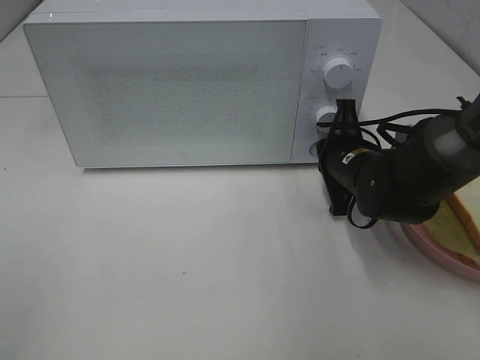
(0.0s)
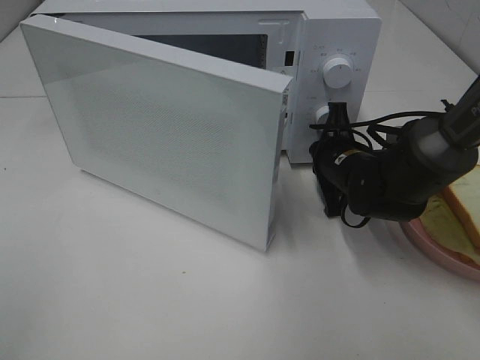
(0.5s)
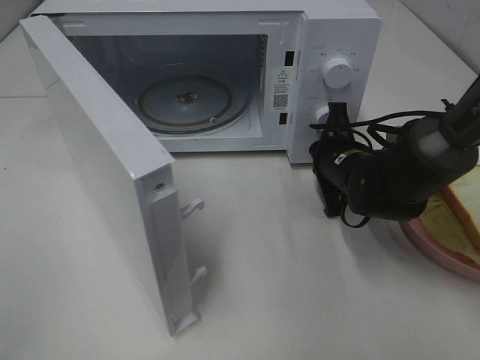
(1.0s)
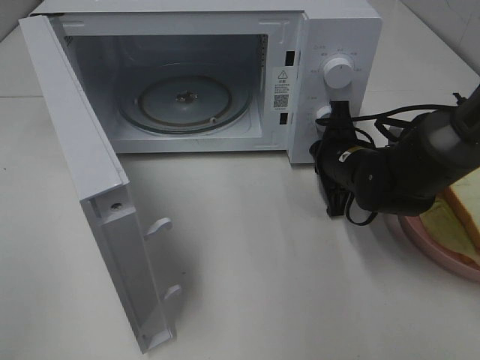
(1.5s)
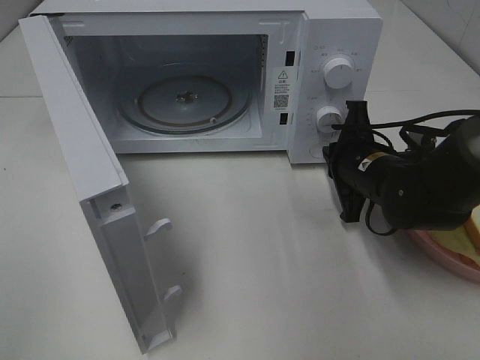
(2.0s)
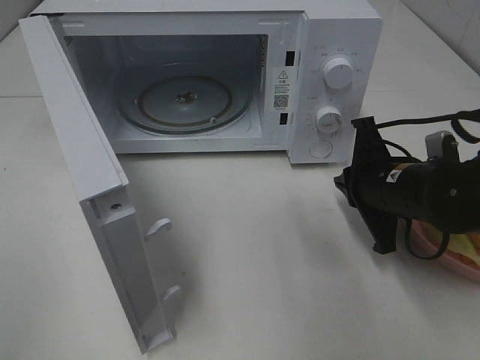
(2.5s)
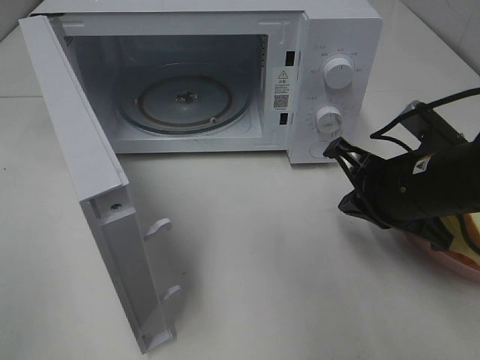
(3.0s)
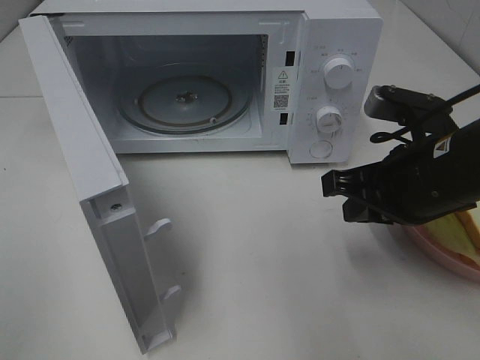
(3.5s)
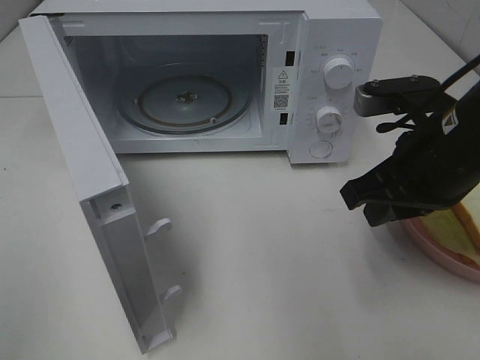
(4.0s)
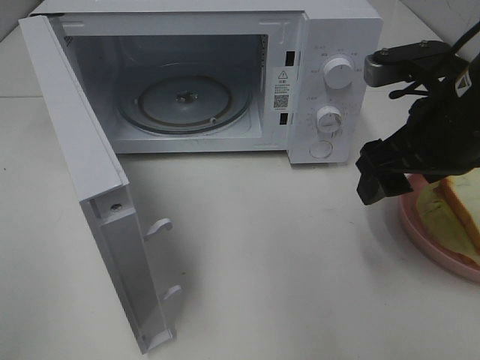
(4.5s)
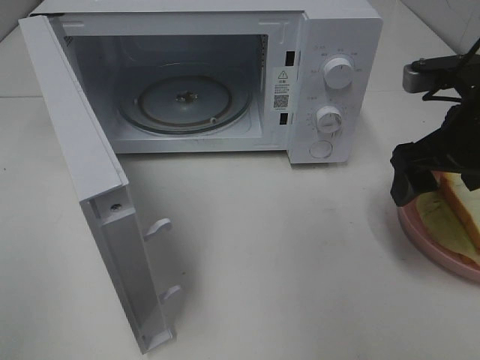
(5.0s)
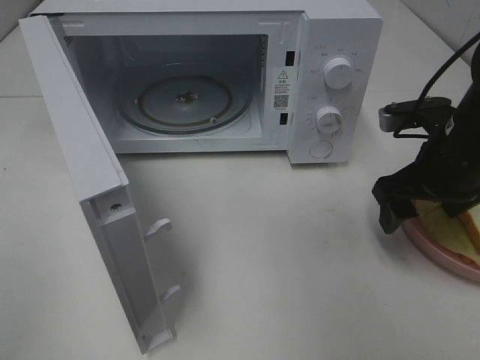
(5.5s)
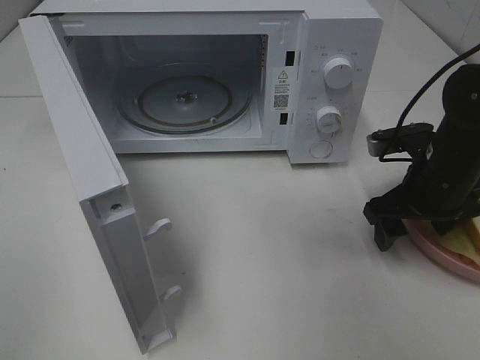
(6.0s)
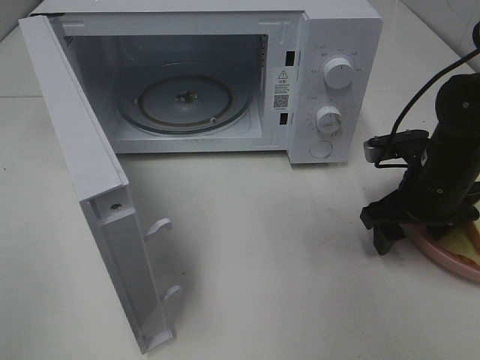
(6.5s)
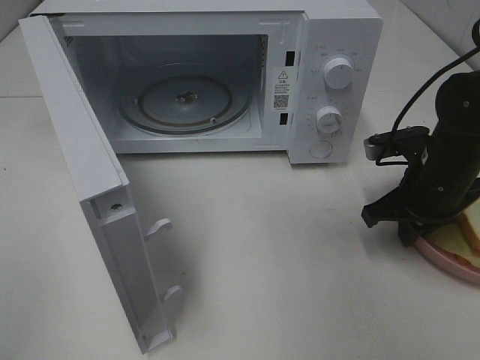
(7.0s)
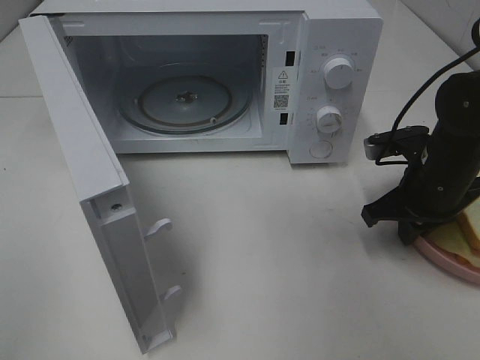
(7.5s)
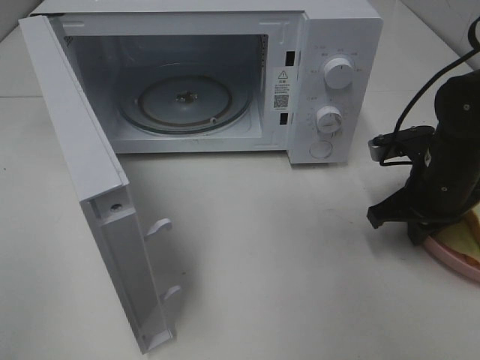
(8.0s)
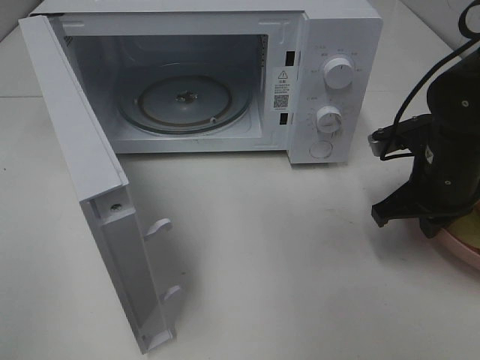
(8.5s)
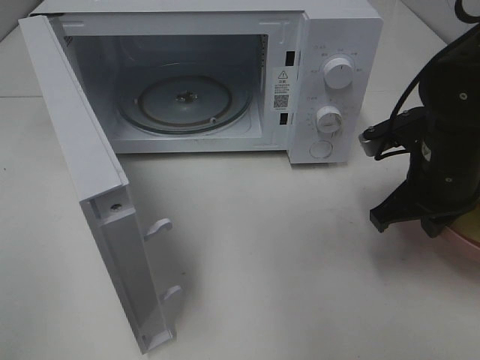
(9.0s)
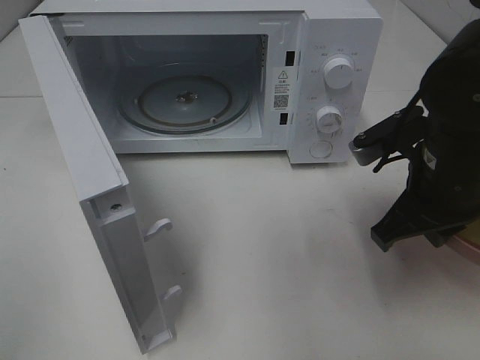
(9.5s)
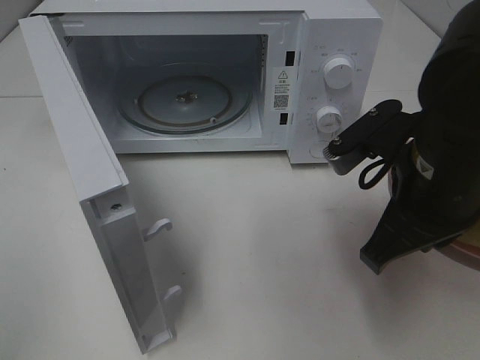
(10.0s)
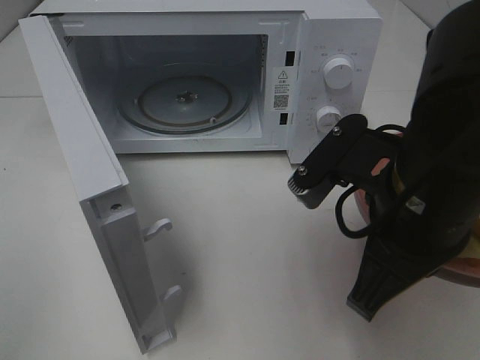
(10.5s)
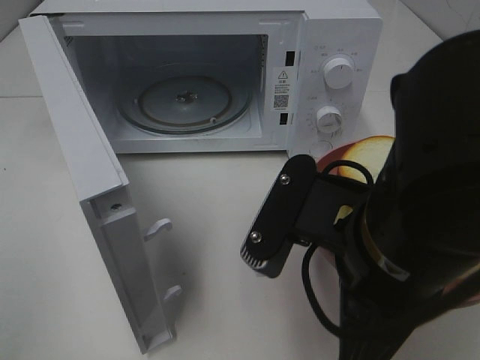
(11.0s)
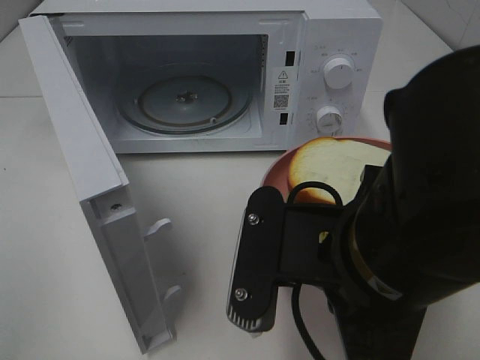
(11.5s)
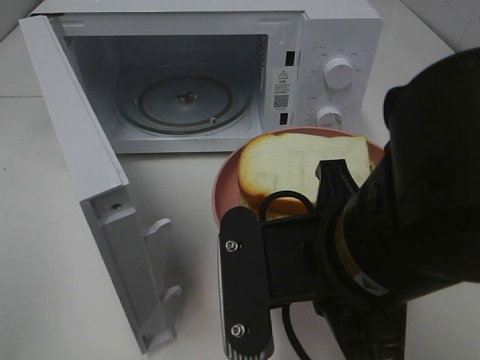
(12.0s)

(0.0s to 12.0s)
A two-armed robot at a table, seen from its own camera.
Task of the whole recording: Heat Sandwich.
Step, 0.0s - 2.0s: Right hand: press the switch.
Step, 2.5s - 7.5s: Right hand: grab the plate with the sandwich.
2.0s - 4.0s: The right gripper is displaced upward and backward by some 15 cm.
4.0s - 6.0s: The right gripper shifts approximately 10 cm downward, forward and to the right, and opens its fingers.
6.0s - 8.0s: The right gripper closes up.
8.0s - 10.0s: The right gripper goes approximately 15 cm backward, upward and to the left.
10.0s - 12.0s: The right gripper is displaced backward and to the left by approximately 10 cm.

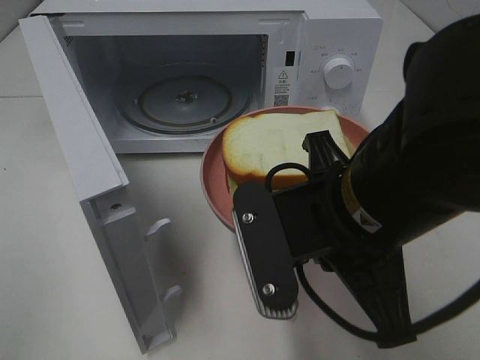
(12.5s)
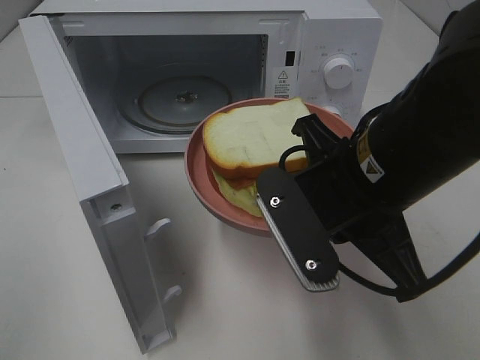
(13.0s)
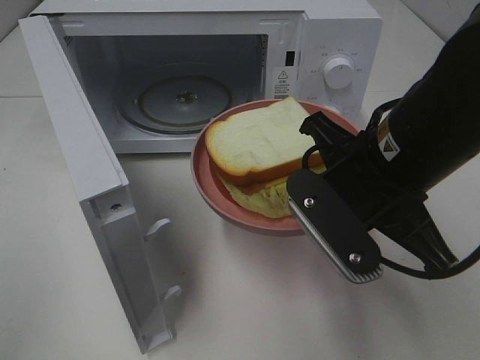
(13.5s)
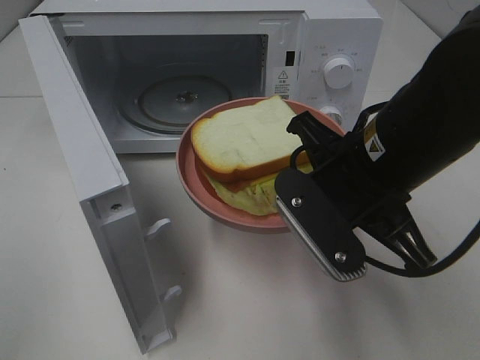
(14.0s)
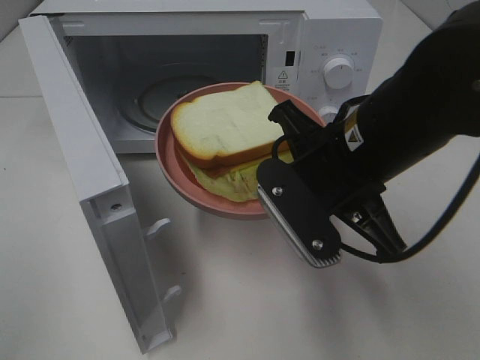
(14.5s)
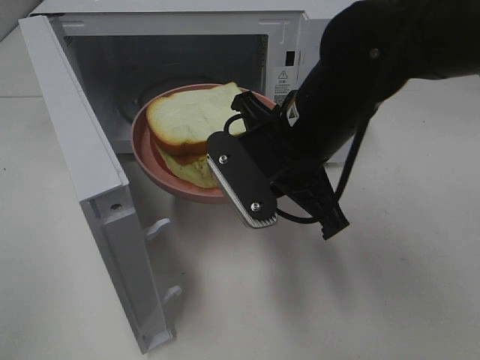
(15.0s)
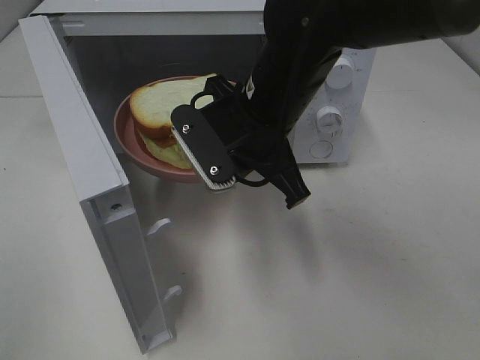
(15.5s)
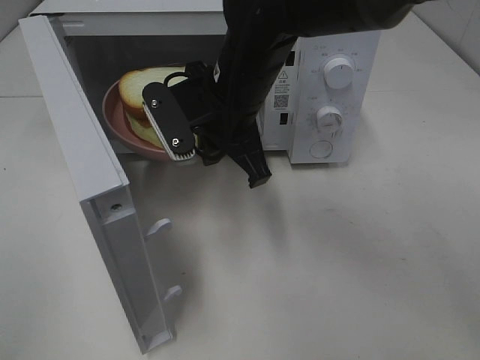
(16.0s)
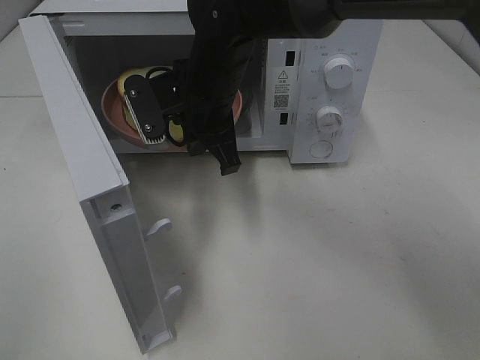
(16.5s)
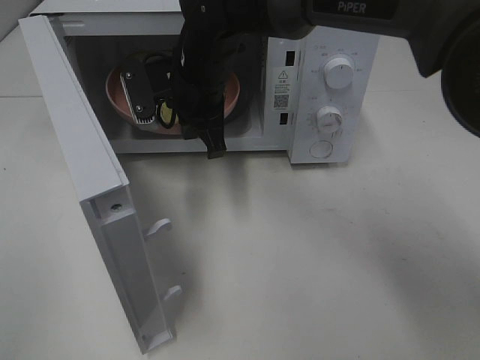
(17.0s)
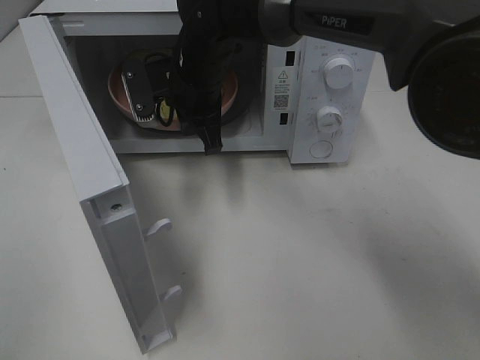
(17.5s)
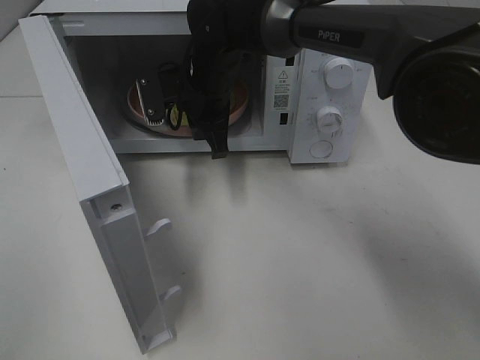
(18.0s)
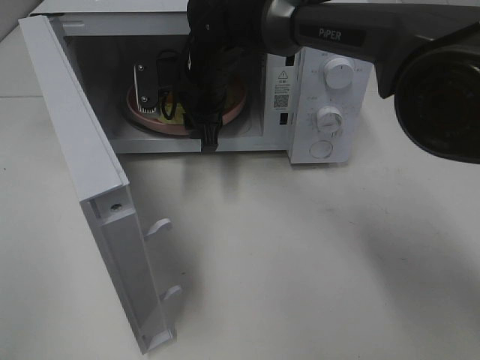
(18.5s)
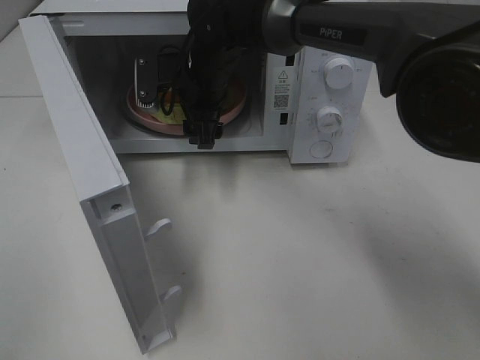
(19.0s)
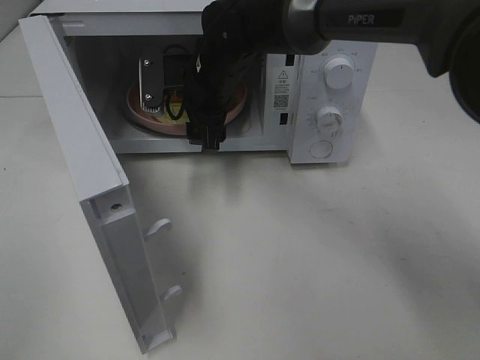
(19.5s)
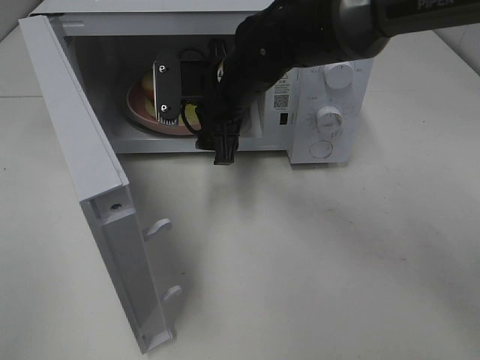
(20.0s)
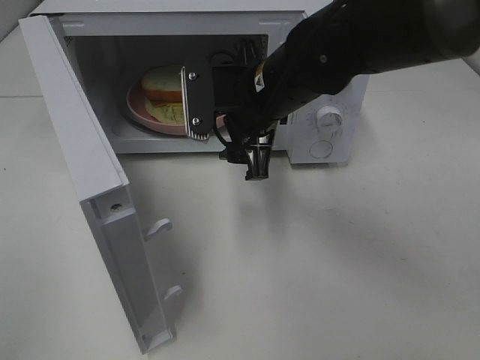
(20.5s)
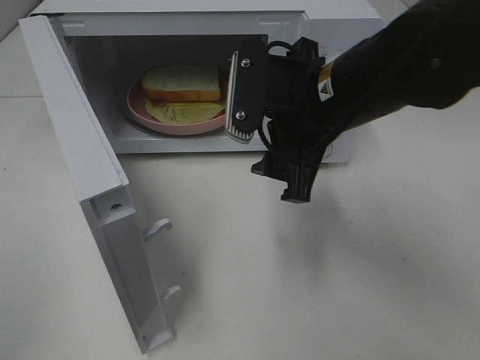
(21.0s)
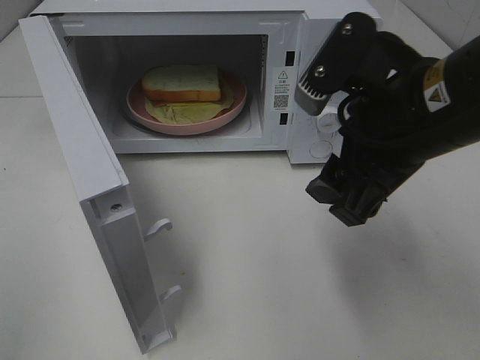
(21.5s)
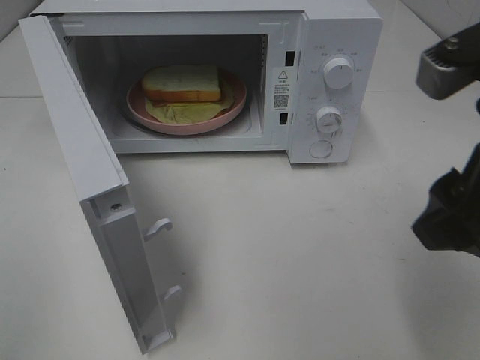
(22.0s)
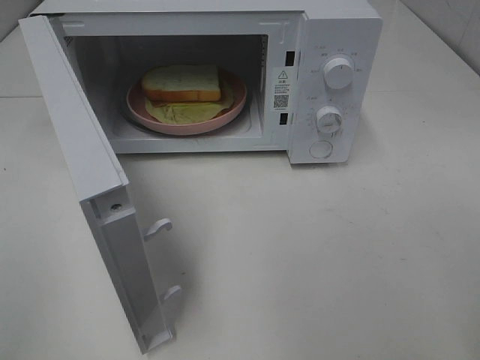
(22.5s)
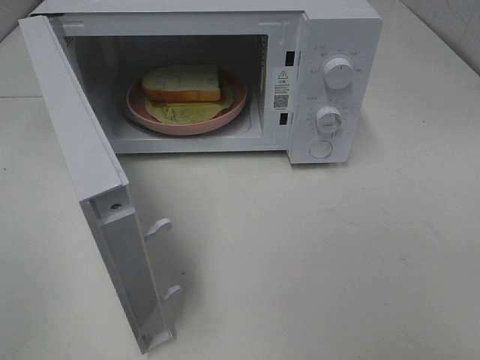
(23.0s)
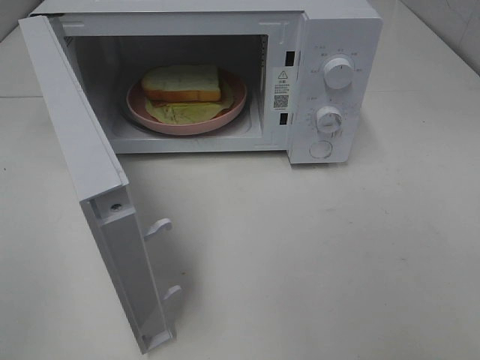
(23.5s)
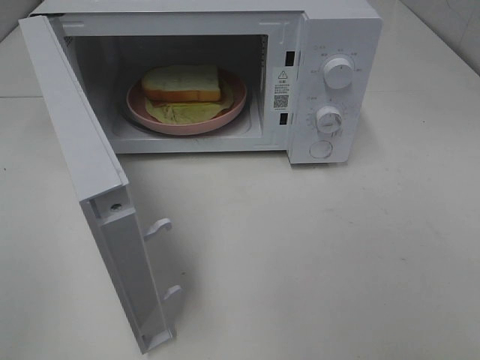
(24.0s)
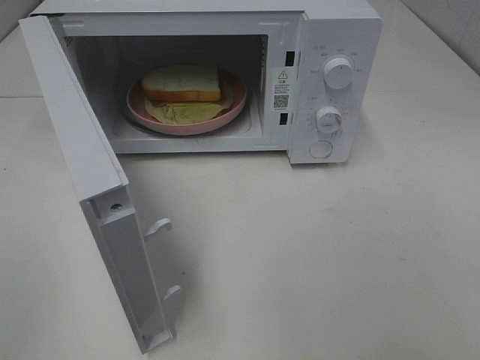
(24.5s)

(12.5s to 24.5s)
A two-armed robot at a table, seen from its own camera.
Task of the whole recording: Heat Sandwich.
Step, 12.5s - 19.5s: Right hand: place the plate in the microwave.
12.5s - 14.5s: The right gripper moves forward, roughly 5 cm.
14.5s - 16.5s: The right gripper travels forward and to the left by roughly 20 cm.
16.5s - 18.5s: The right gripper moves forward, approximately 5 cm, and opens its fingers.
18.5s - 20.5s: The right gripper moves backward and to the right, roughly 15 cm.
20.5s - 22.5s: The right gripper shifts roughly 30 cm backward, to the right and upward.

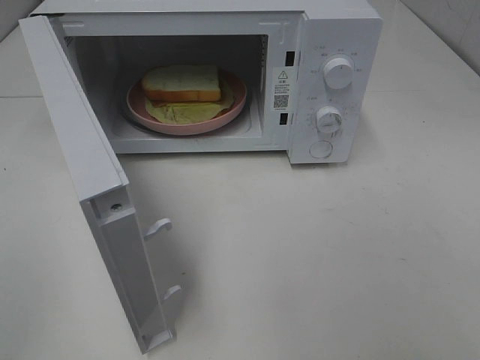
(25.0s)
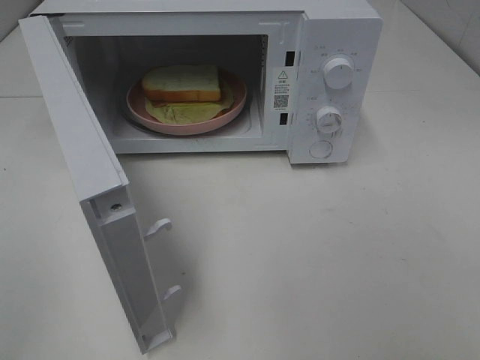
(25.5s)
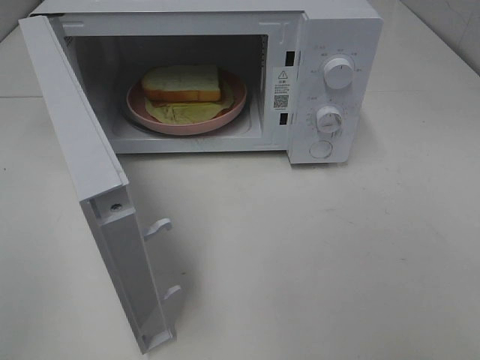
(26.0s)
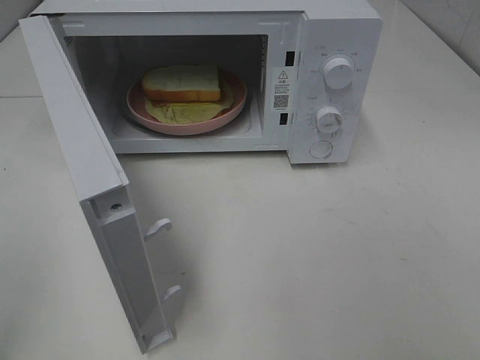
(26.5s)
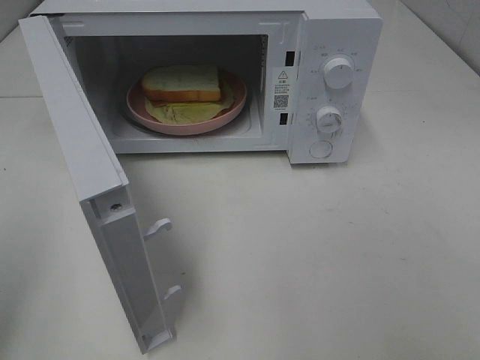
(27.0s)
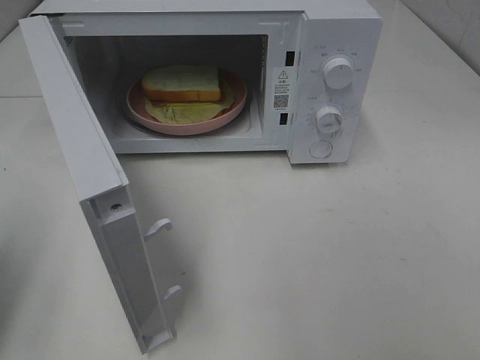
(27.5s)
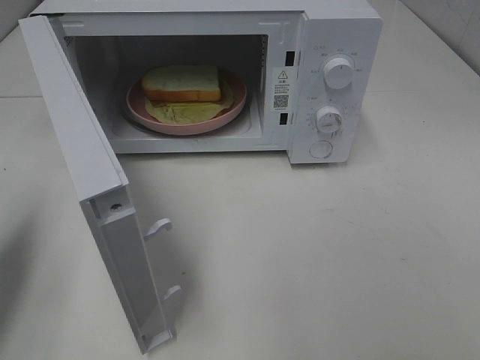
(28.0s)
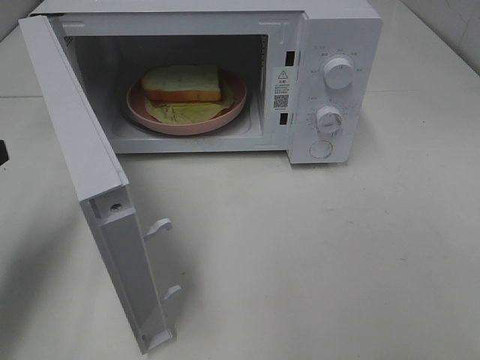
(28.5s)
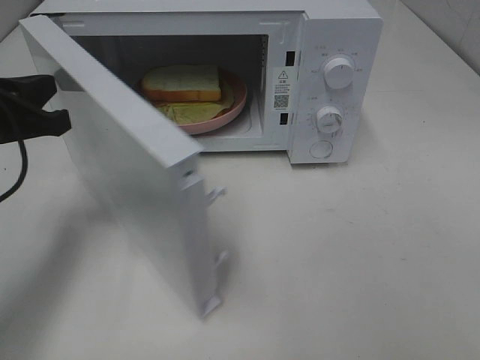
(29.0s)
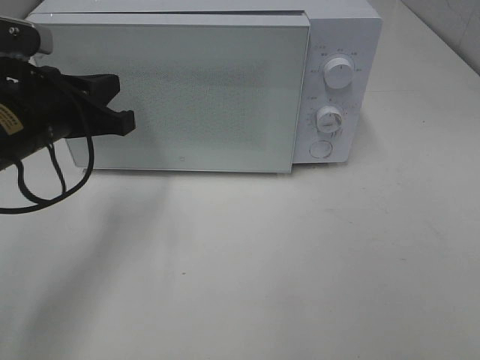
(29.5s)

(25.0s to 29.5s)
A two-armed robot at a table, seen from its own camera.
Task of the whole recording: Heat Sandwich.
27.0s - 29.5s: The left gripper moves forward, to the right and downward, about 25 cm.
